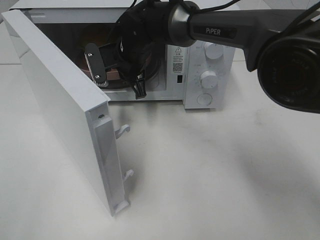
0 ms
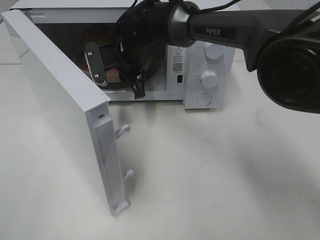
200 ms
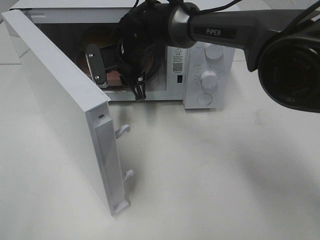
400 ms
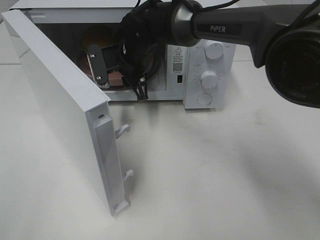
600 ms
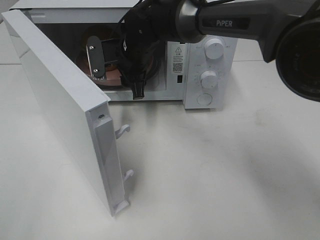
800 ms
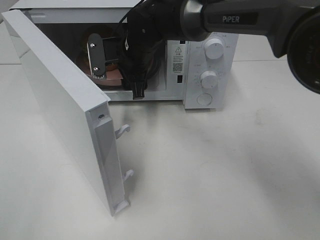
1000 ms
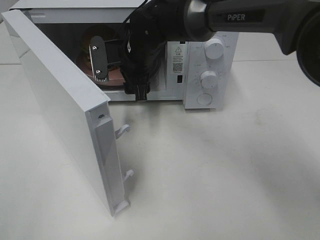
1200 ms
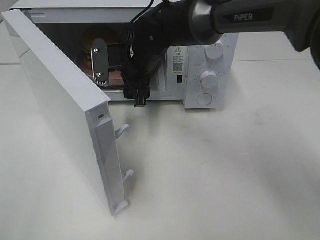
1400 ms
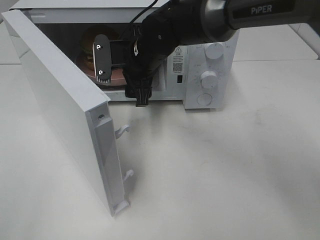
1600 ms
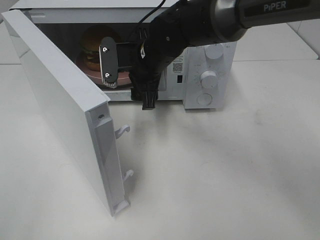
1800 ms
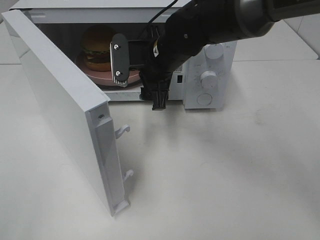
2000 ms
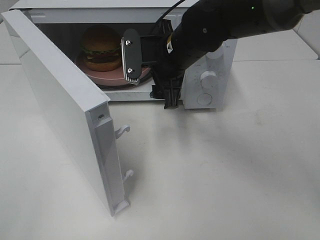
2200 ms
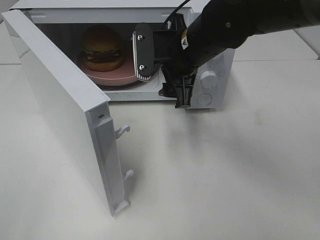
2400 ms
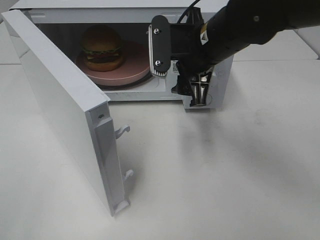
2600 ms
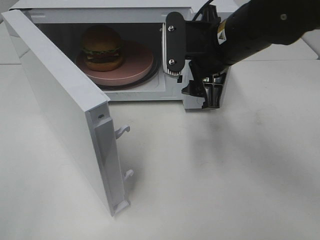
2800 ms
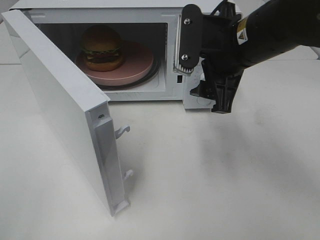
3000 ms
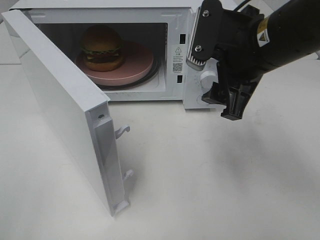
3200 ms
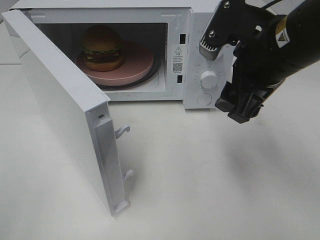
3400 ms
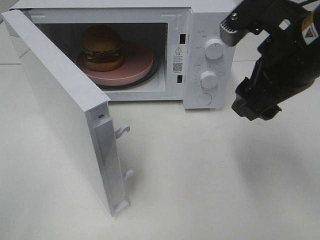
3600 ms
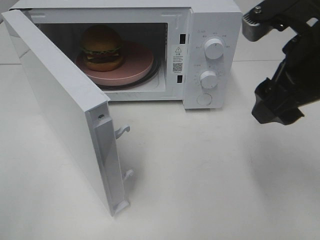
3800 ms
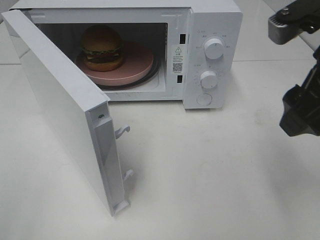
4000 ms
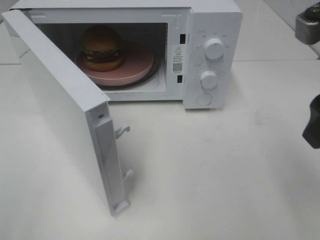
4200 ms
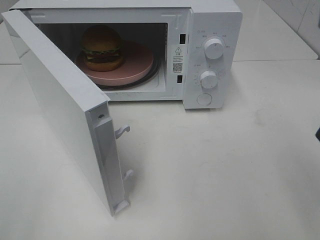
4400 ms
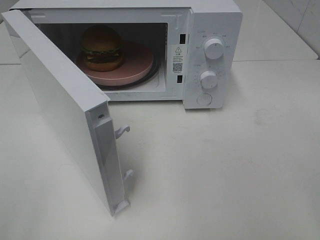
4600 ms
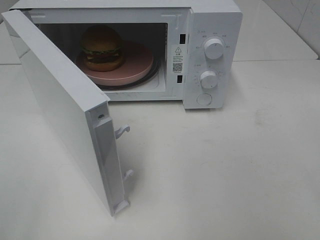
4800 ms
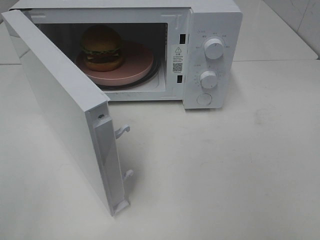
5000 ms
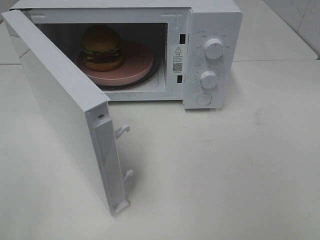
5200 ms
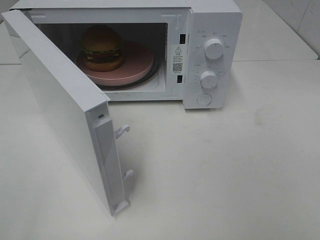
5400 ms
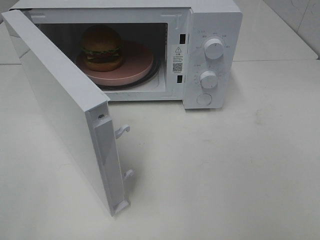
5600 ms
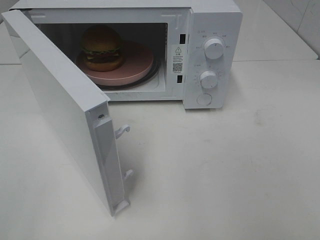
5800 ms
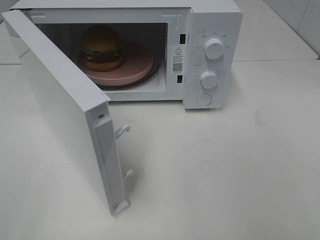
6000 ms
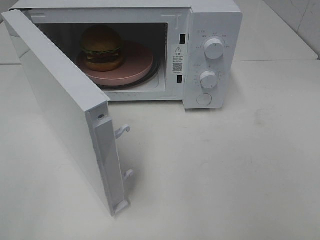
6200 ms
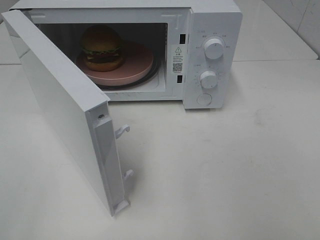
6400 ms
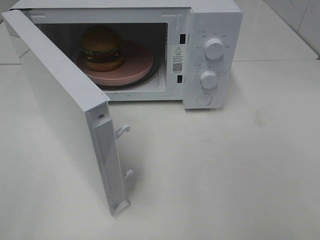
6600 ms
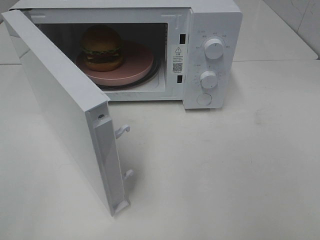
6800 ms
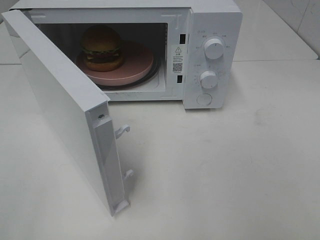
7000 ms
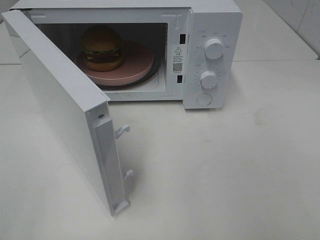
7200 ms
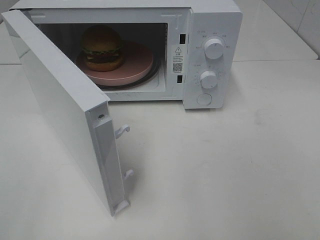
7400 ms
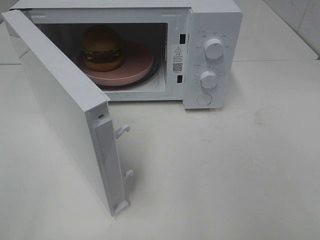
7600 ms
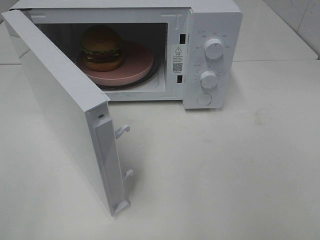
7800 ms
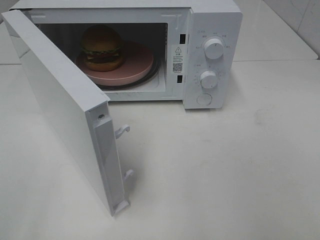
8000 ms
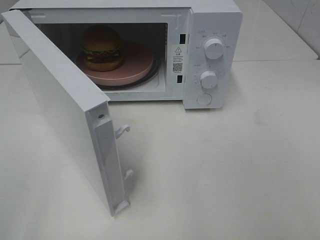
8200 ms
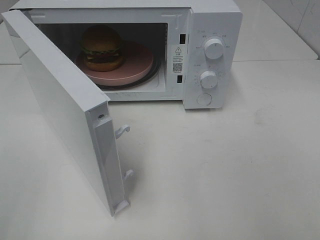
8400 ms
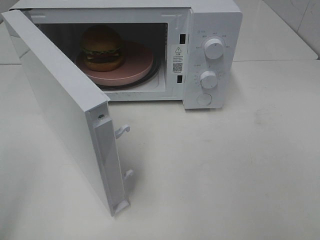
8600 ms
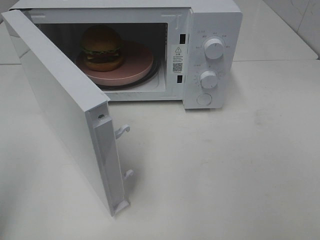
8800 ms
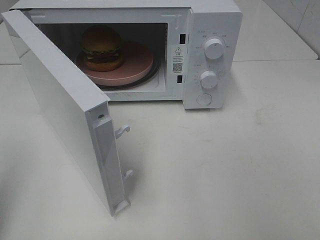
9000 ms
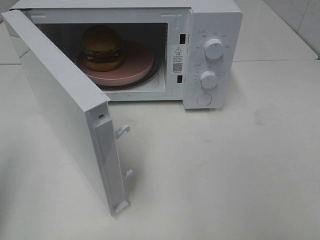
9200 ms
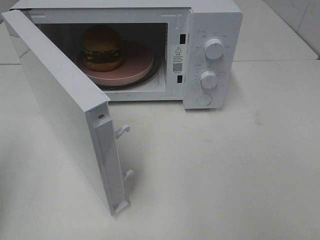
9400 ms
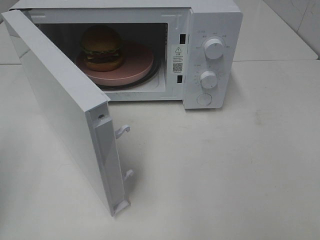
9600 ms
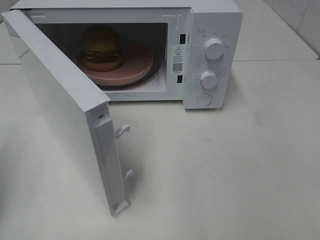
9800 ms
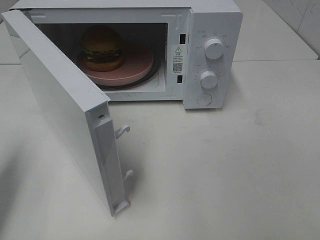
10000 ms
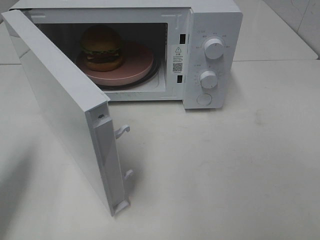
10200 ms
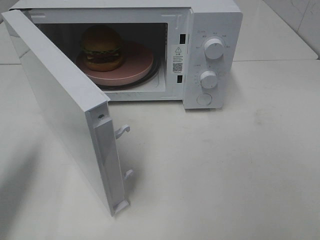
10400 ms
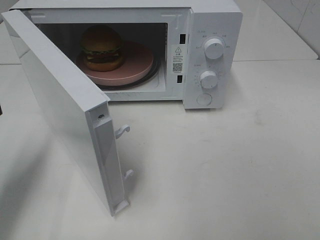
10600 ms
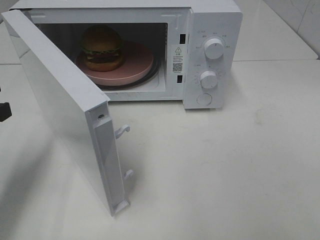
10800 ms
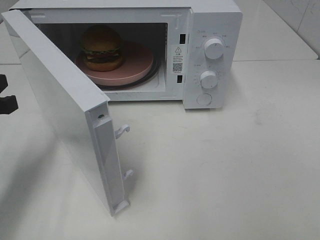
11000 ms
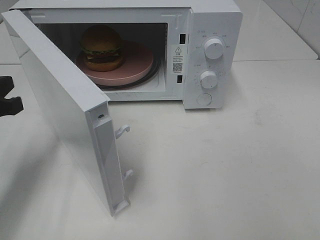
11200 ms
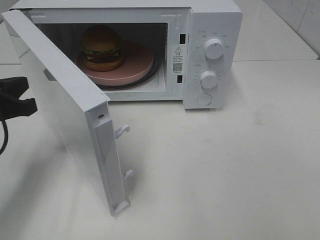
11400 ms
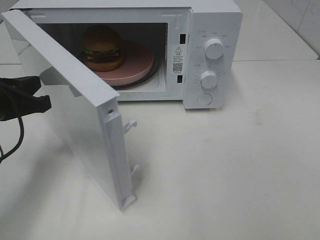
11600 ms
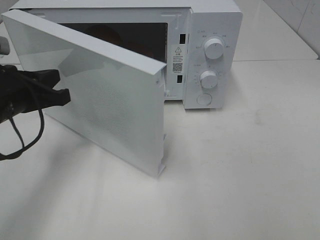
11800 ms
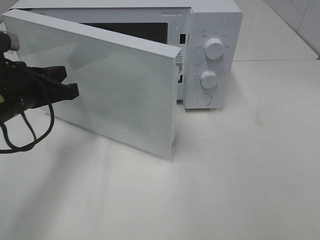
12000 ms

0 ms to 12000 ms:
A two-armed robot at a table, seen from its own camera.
Task of the whole recording: Heat the burger.
0 ms to 1600 ms: The right gripper ends up some 5 cm from where it was, and opens its fingers.
1600 ms to 3000 ms: The right gripper heads to the right, backward and upward, covering about 20 cm.
3000 ms to 4400 ms: The right gripper goes approximately 20 cm backward, to the right and upward.
6000 ms to 7600 ms: Both grippers stay about where they are.
9000 ms to 10400 ms: The left gripper heads forward and downward, covering roughly 15 cm.
10400 ms to 12000 ms: The left gripper shifts approximately 10 cm to the right and forward.

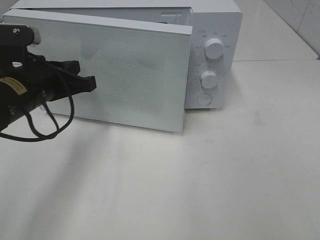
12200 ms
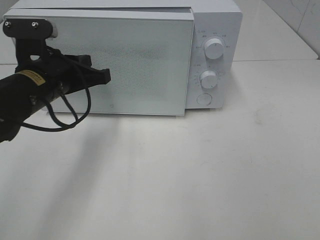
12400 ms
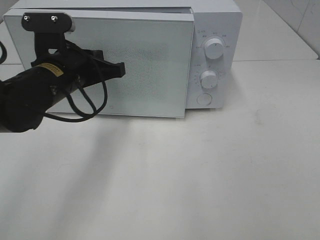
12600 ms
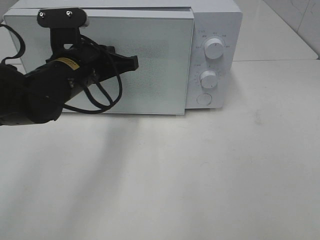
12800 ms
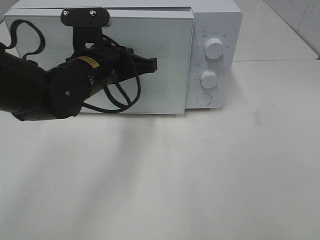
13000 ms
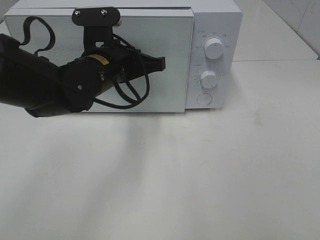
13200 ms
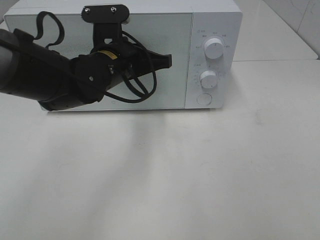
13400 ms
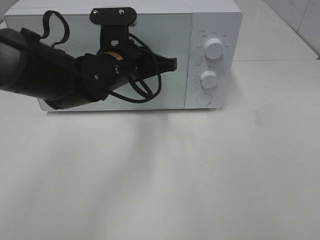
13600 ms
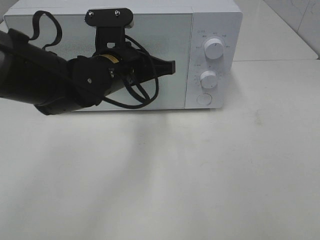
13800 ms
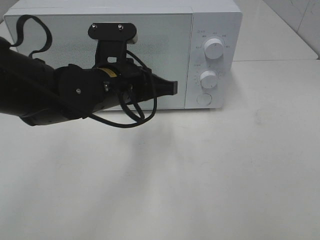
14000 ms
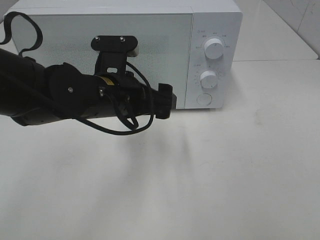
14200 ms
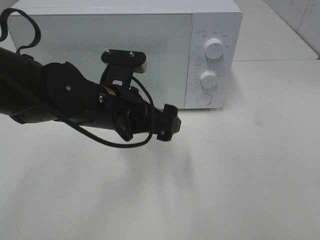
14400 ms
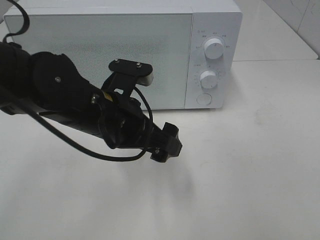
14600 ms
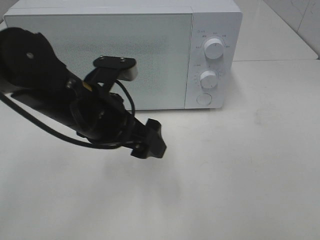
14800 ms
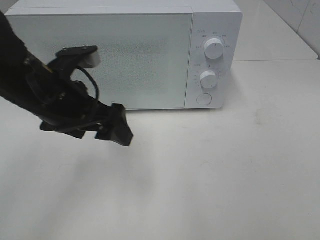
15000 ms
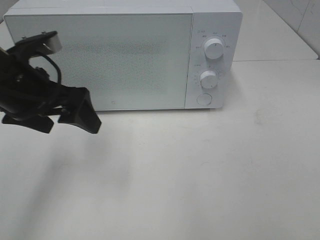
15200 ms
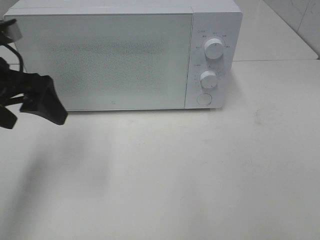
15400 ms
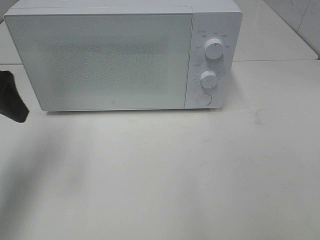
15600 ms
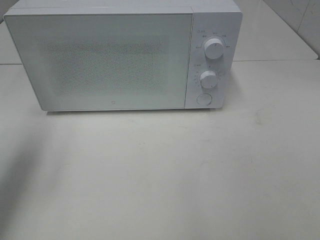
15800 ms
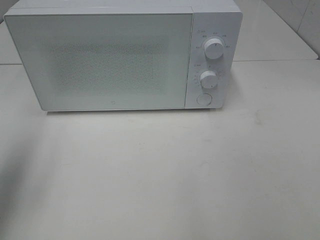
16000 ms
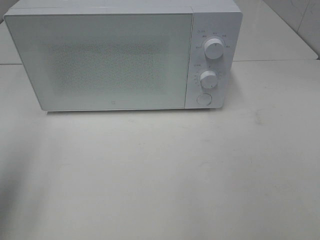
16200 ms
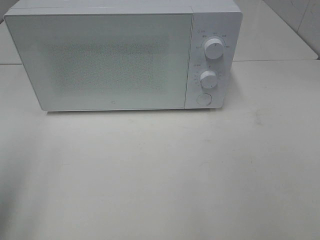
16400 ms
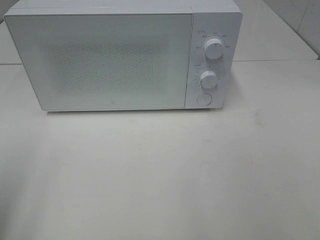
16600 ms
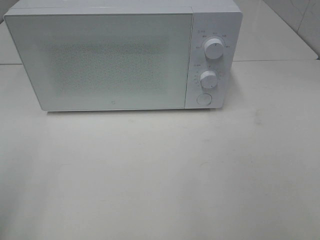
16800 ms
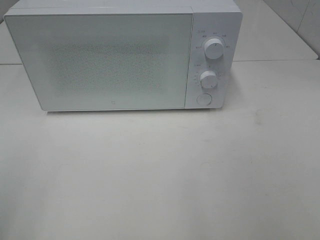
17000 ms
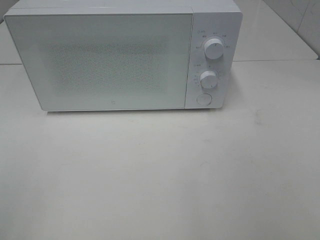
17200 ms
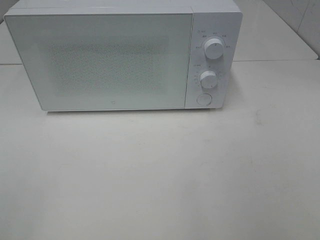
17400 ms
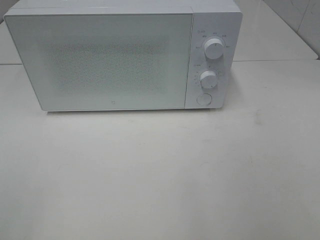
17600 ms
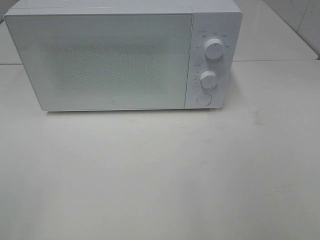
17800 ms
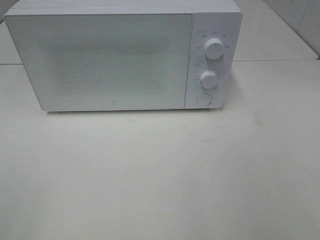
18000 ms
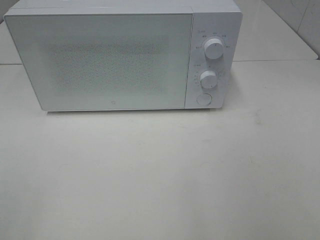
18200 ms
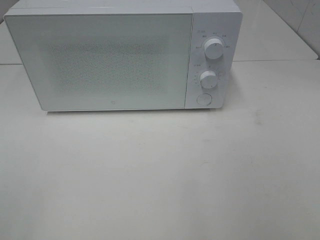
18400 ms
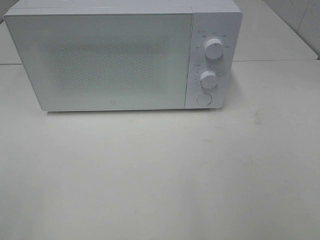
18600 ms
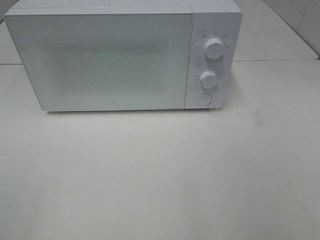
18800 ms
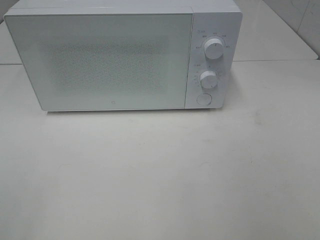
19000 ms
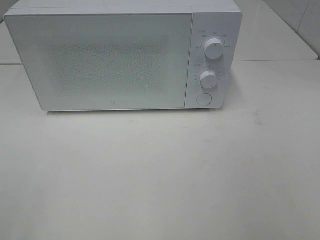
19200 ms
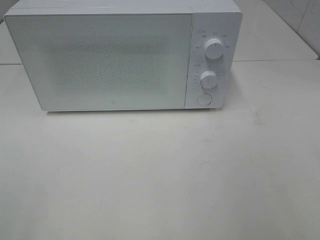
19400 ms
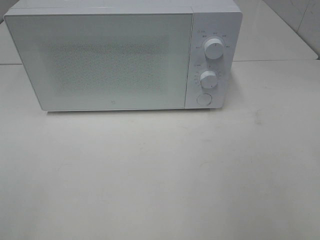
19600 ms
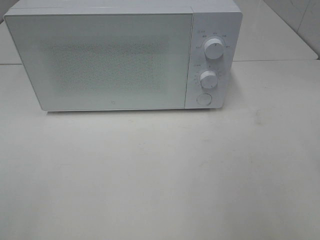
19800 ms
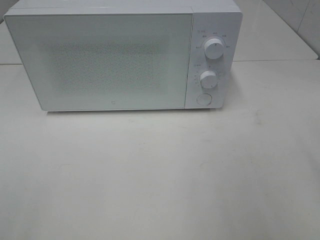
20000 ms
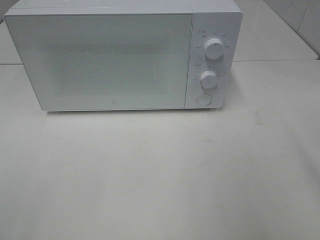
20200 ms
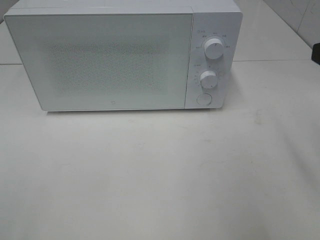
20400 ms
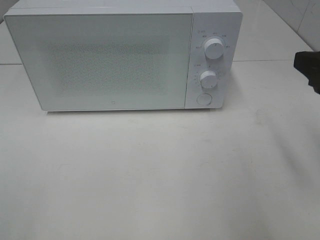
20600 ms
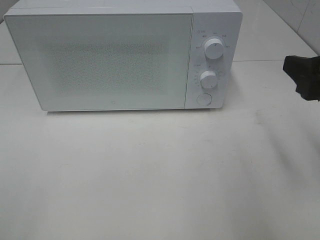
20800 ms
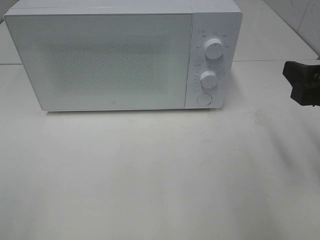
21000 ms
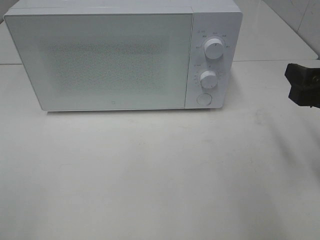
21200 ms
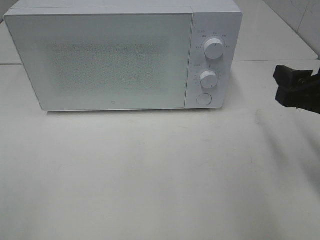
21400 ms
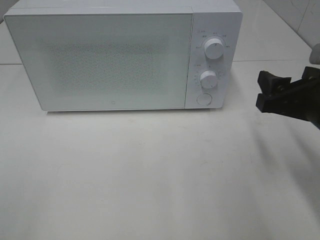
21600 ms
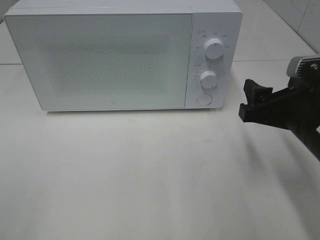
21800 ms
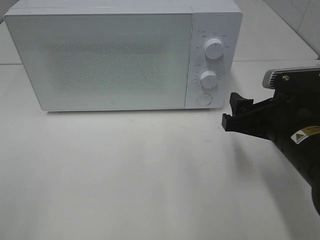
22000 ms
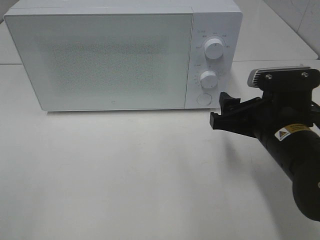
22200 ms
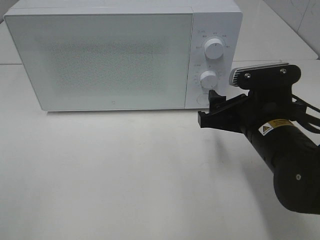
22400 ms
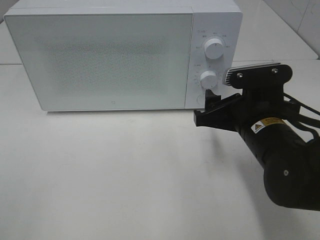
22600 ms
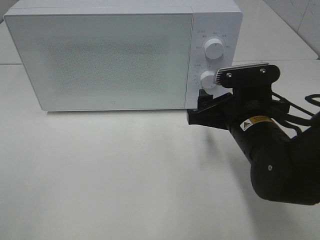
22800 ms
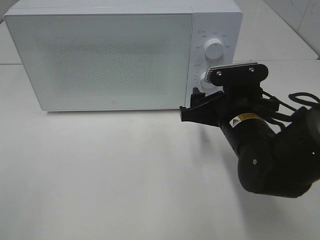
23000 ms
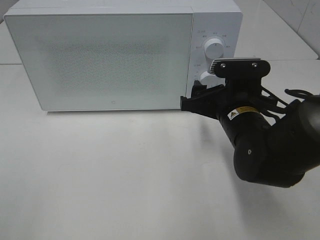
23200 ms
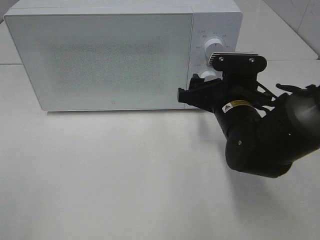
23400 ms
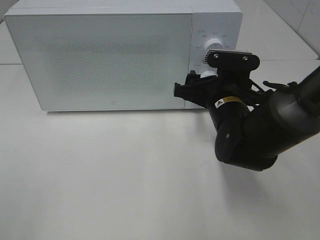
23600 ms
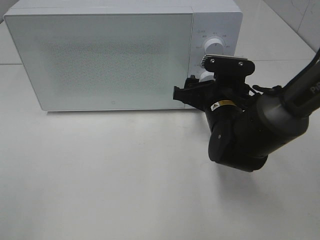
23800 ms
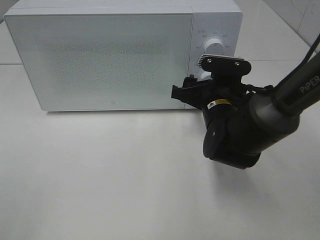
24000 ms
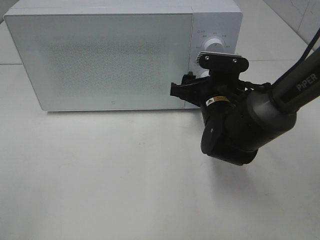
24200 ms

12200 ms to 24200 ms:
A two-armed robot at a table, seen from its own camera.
Task of the whole recording: Heat the burger.
Step, 12200 ms to 14200 ms: Left hand: close the microwave door.
12200 ms to 13800 ms: The left gripper heads to the right, covering approximately 10 cm.
13800 ms to 15200 ms: The left gripper heads to the left and backward, covering approximately 15 cm, and opens its fingers.
15200 ms to 16600 ms: The left gripper shifts some 20 cm backward and to the left.
19800 ms to 21200 ms: The right gripper travels downward and forward by some 15 cm.
21200 ms to 22600 ms: The right gripper heads to the left and downward, covering approximately 15 cm.
22600 ms to 24200 ms: The right gripper is displaced forward by about 10 cm.
